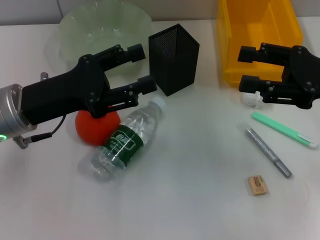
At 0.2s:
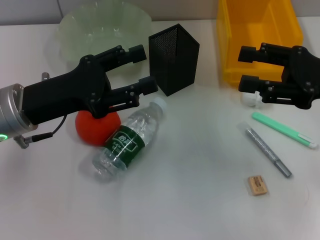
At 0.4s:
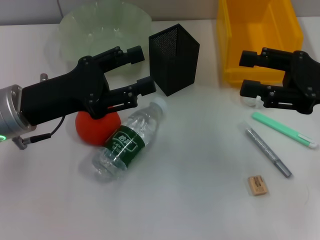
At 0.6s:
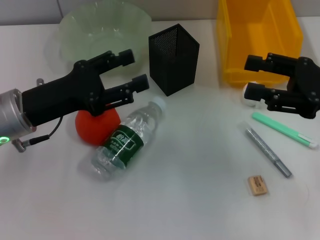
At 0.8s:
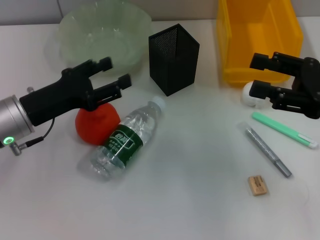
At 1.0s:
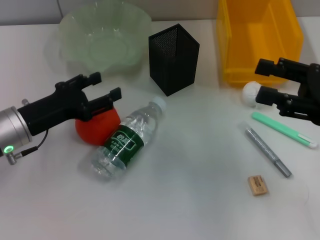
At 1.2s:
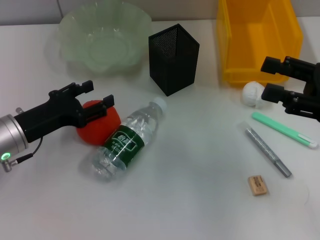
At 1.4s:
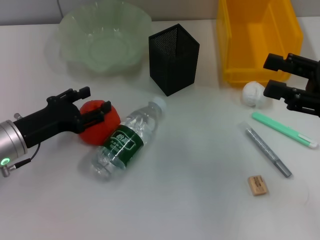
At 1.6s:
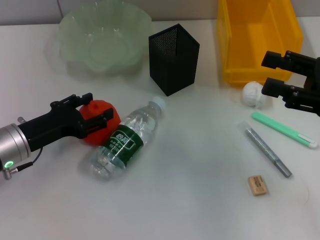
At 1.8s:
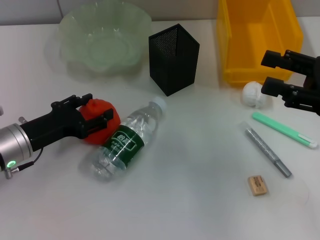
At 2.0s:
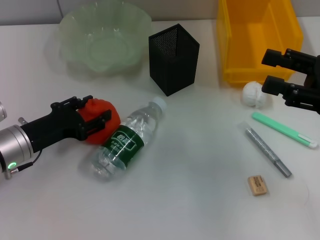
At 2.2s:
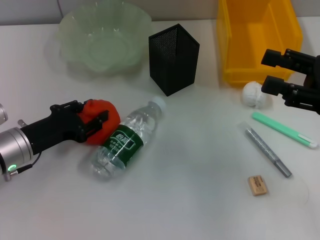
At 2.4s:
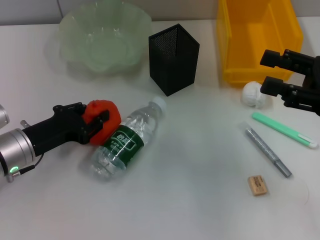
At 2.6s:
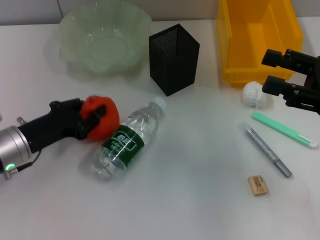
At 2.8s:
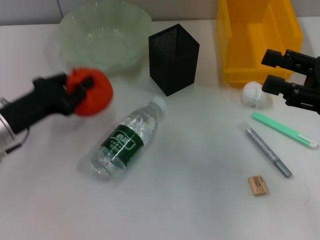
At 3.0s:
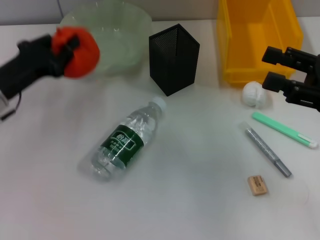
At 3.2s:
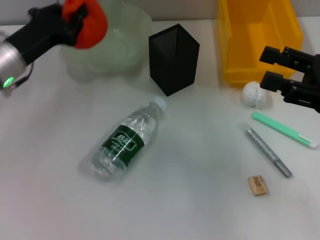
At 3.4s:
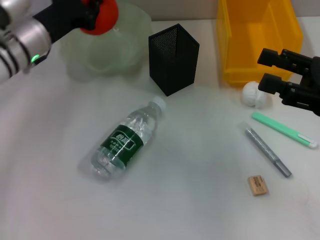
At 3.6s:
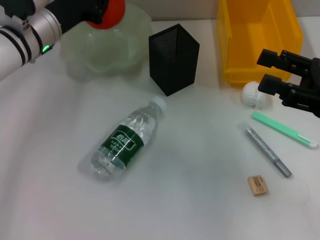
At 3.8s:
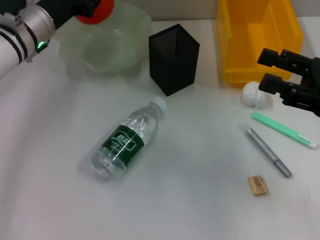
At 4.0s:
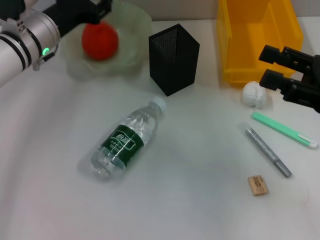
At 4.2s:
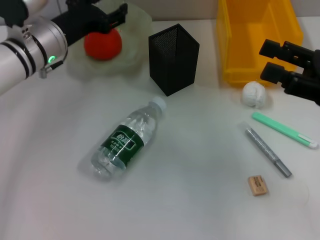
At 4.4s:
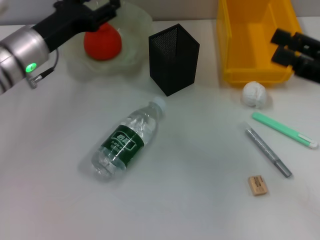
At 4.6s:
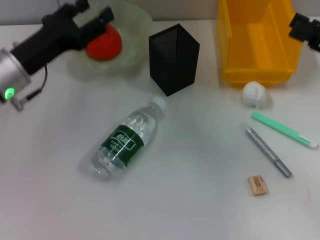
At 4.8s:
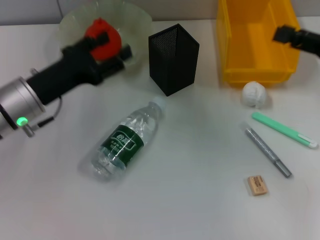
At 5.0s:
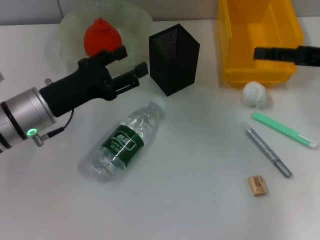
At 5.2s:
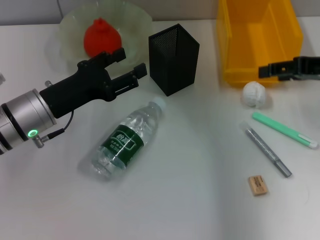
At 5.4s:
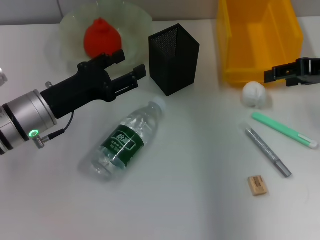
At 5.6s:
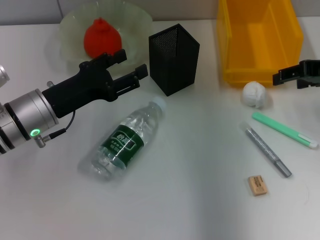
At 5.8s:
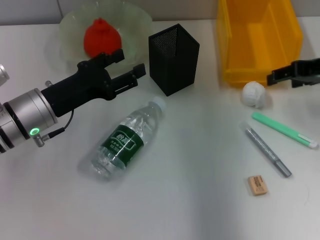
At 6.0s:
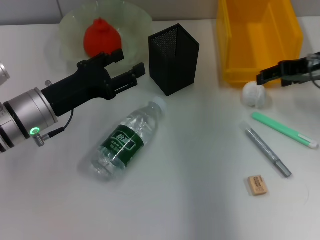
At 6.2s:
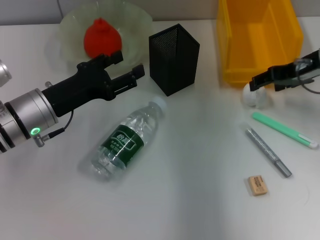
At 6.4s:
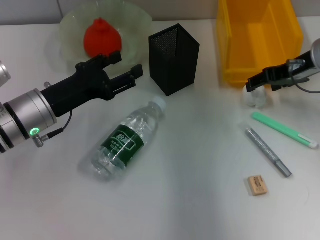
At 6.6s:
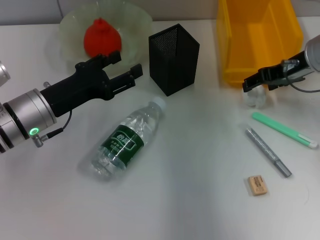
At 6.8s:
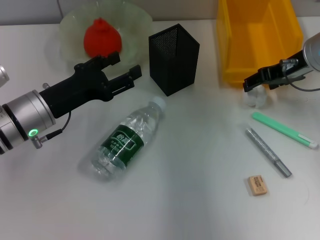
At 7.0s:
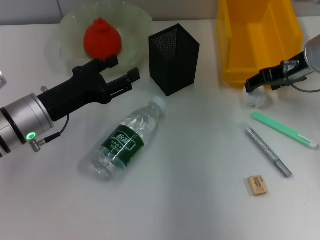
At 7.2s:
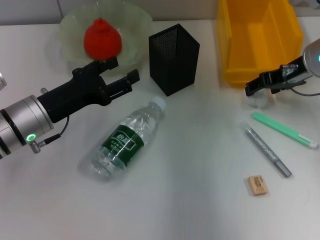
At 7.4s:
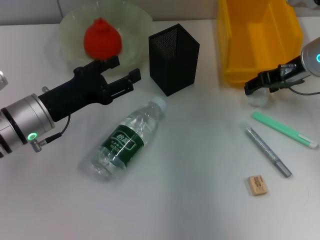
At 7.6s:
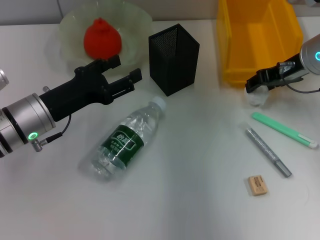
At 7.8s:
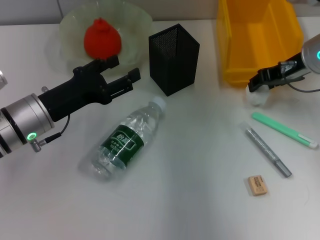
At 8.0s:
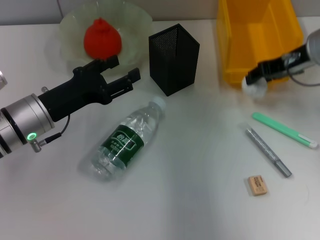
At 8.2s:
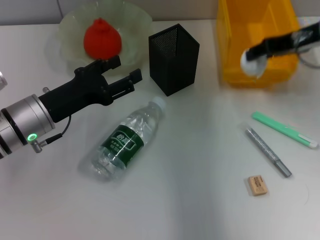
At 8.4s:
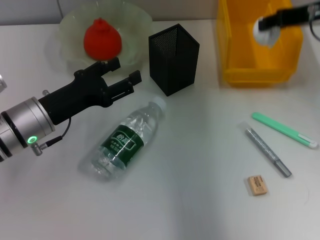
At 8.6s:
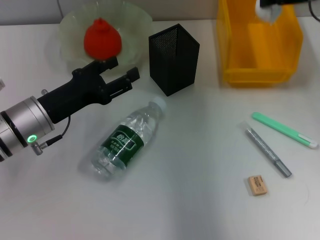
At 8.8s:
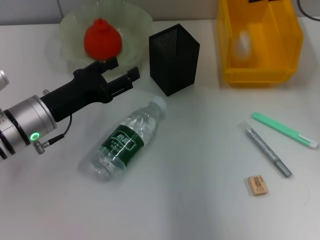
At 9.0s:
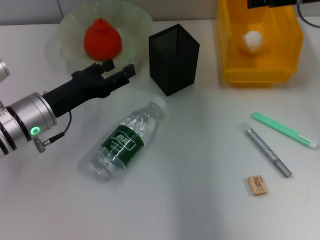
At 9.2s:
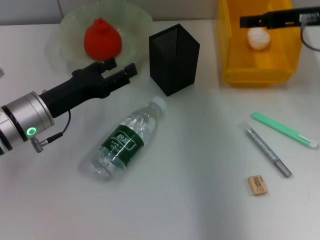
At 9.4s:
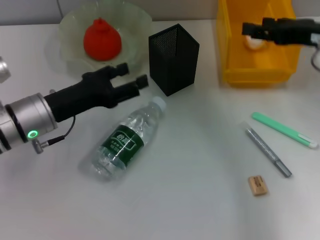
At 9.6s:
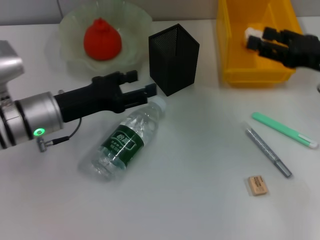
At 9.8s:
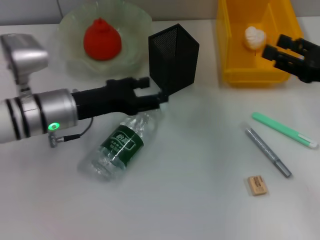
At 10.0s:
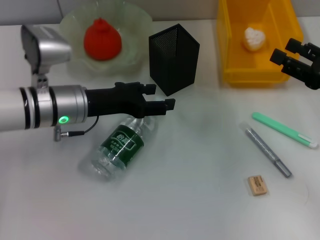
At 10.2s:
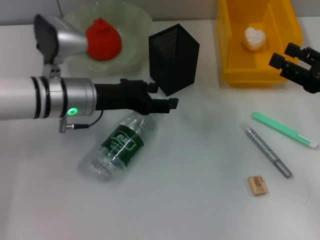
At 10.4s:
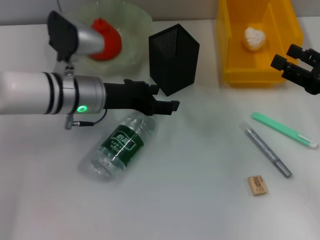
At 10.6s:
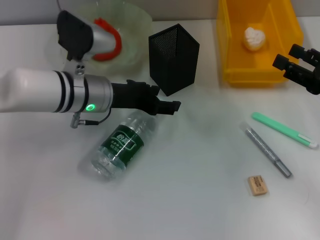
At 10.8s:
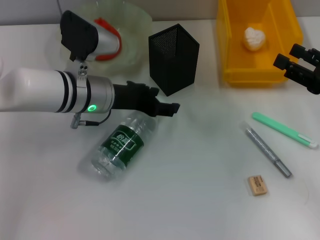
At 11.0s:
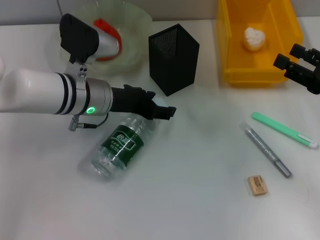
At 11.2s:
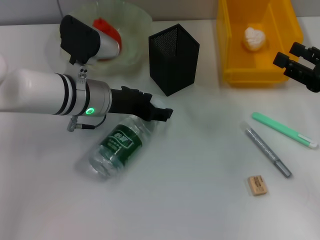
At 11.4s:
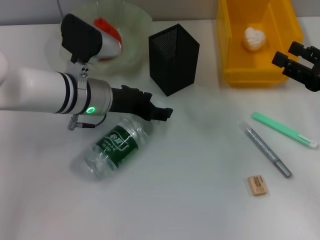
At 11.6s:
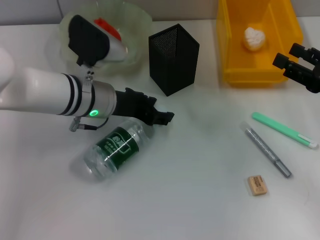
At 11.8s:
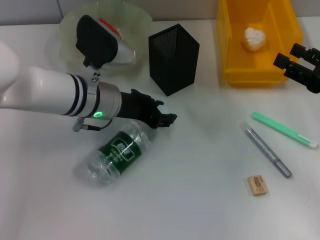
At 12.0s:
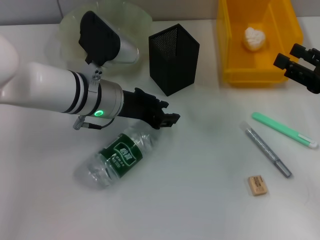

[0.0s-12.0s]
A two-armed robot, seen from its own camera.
Step, 0.0s to 2.4s: Grab the orange with the left hand.
Step, 2.6s to 4.2s: Place the orange into the fruit bowl with the left hand.
Step, 4.4s to 7.6s: Grab the paper ball with the right hand.
Step, 7.8s to 9.2s: Place the paper ball into the trash can with the right hand.
0.0s to 1.6s: The left gripper shifts roughly 10 cm downward.
1.6s to 3.0s: The left gripper changes place by approximately 5 cm, and closes.
3.0s to 4.4s: The left gripper heads forward and to the right, covering roughly 10 cm, and opens.
4.4s to 6.0s: The right gripper shifts approximately 10 cm forward. Meanwhile the left gripper shifts approximately 5 cm backward.
6.0s to 7.6s: The right gripper moves about 5 cm.
7.6s to 9.0s: The right gripper travels upward by roughly 10 cm.
9.0s to 10.4s: The left gripper travels to the right by some 5 cm. Meanwhile the right gripper heads backward, downward and to the right, covering some 20 cm.
10.4s to 12.0s: The left gripper closes up.

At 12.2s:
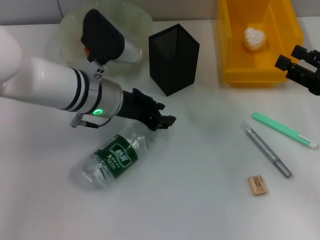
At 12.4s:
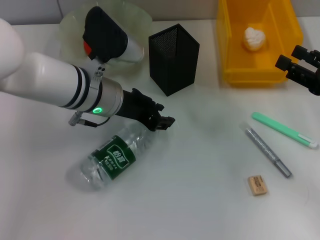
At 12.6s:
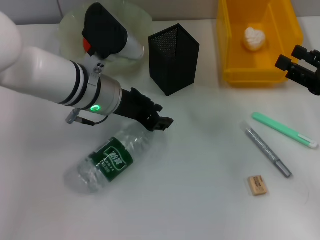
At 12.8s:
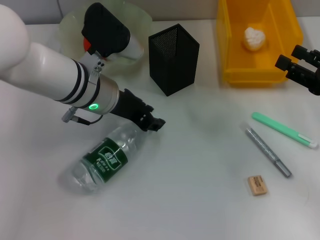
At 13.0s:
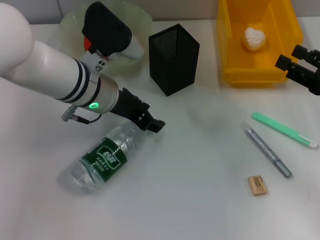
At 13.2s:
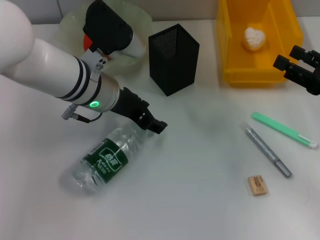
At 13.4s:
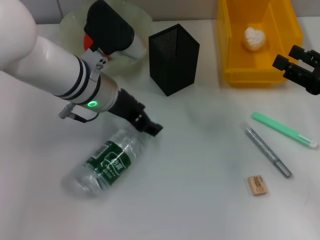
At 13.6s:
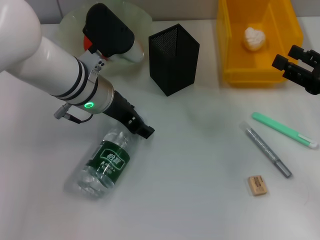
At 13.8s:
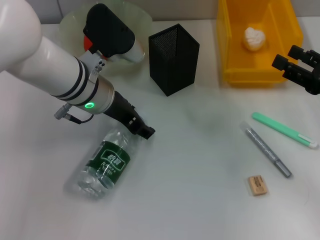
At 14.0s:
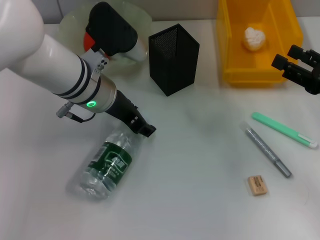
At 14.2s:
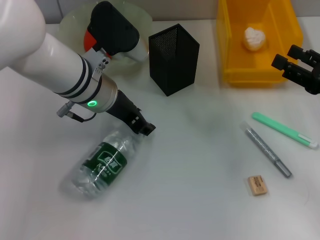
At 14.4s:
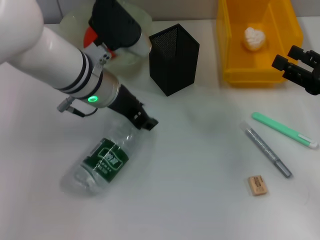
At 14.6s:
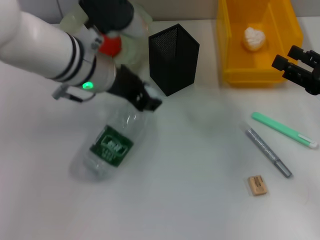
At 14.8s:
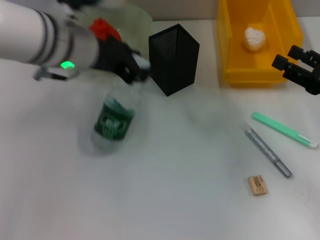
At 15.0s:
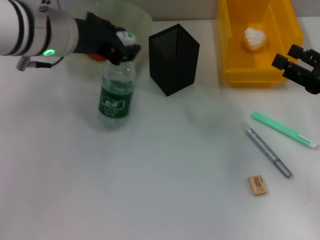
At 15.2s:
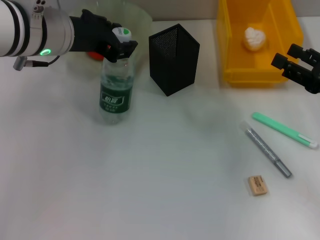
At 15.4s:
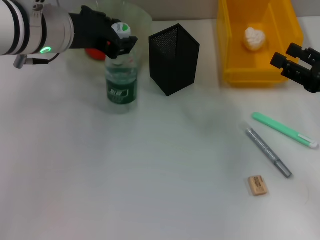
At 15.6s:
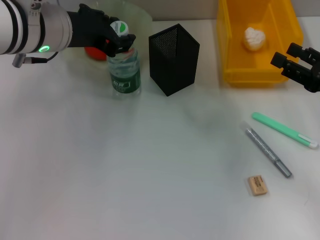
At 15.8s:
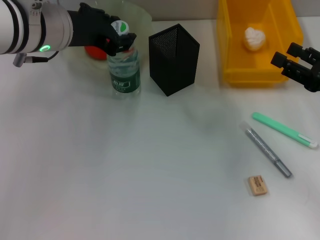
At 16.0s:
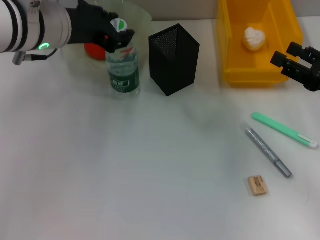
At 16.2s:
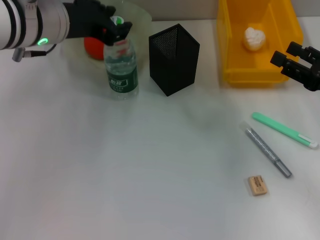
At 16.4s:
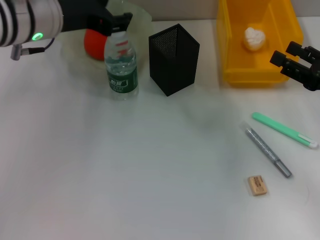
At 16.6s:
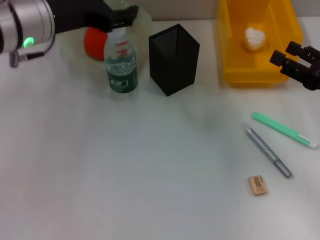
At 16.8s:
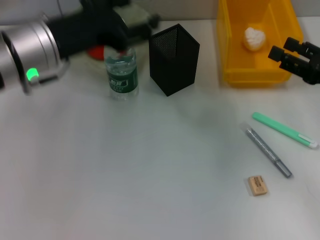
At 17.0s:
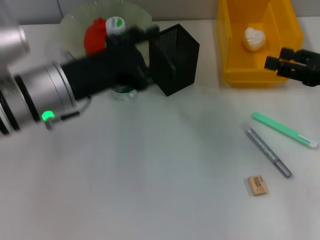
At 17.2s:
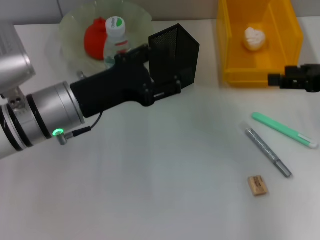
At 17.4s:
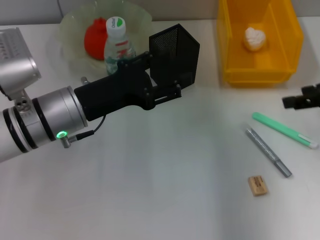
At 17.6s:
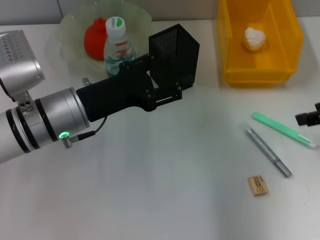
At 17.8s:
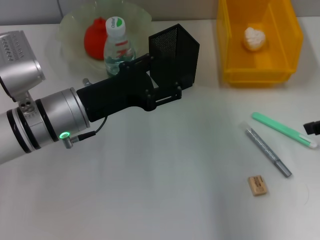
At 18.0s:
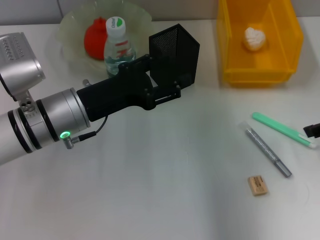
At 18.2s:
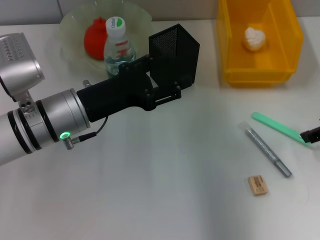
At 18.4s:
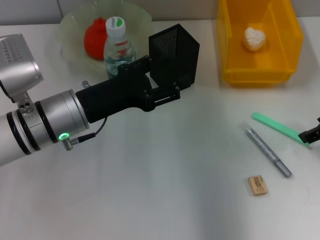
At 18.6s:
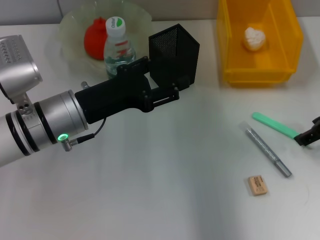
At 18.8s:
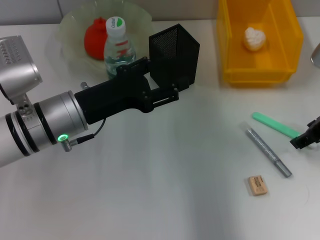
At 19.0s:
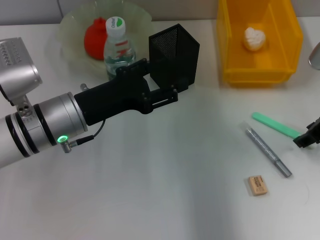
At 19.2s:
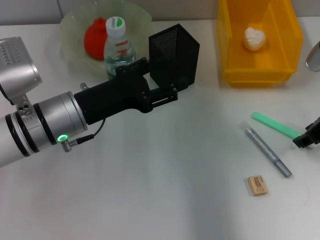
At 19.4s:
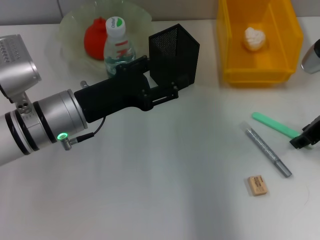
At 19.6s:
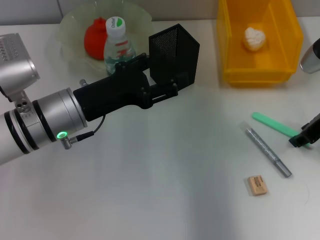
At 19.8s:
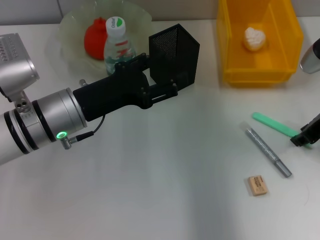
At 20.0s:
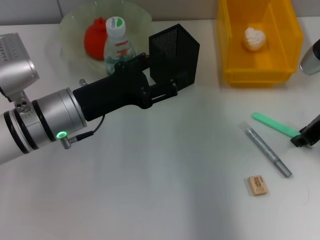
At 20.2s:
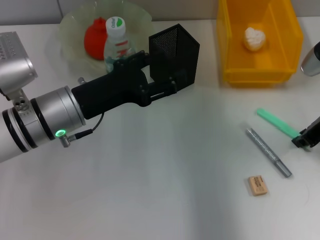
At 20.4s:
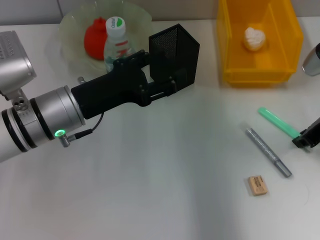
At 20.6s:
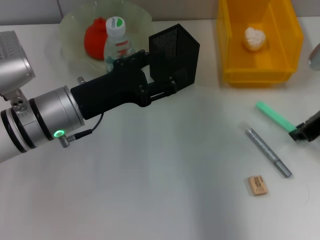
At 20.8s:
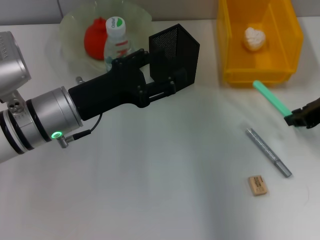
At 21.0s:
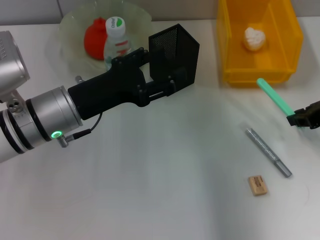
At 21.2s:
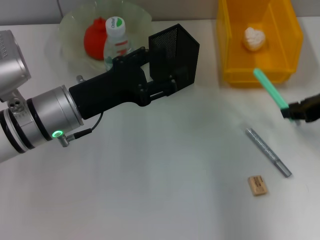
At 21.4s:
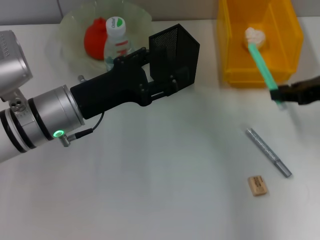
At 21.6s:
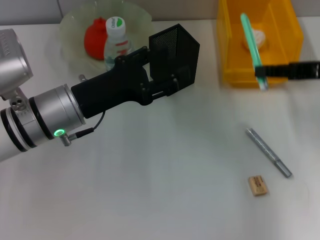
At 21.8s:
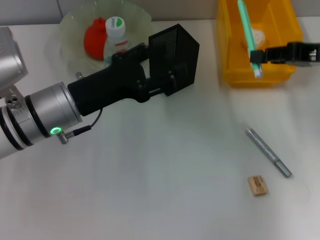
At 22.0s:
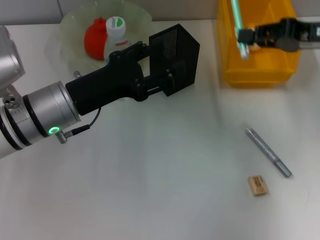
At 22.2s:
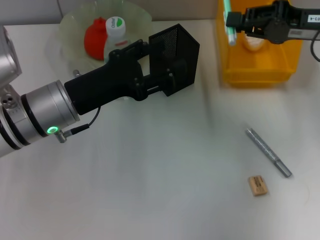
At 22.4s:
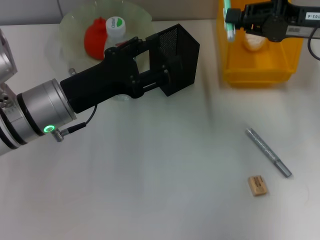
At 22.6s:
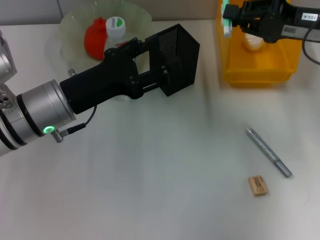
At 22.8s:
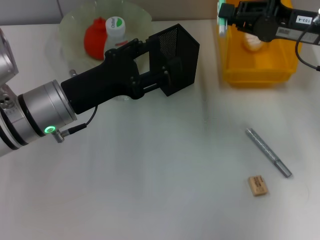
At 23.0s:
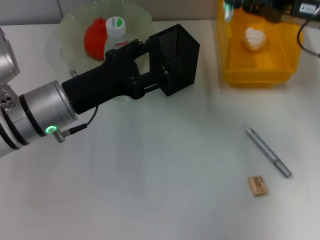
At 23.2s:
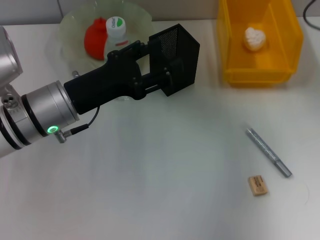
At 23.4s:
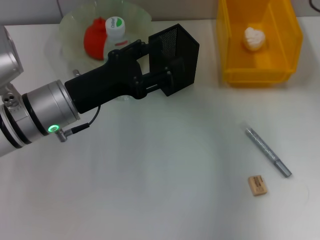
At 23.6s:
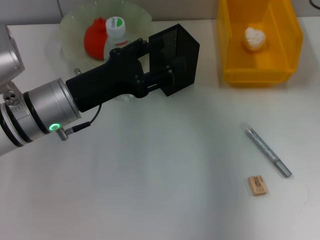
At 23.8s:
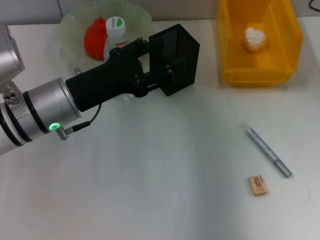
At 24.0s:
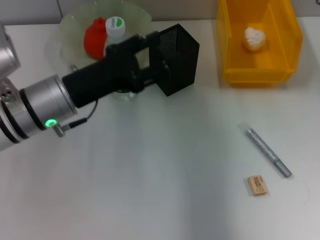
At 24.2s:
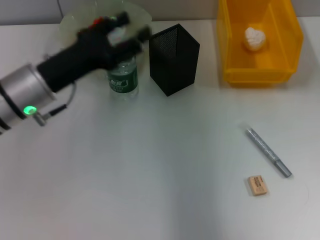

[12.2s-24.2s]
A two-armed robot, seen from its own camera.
Step, 12.2s to 14.4s: Grab the water bottle with the left hand.
Step, 14.6s to 16.4s: Place the water bottle on the table with the left hand.
Step, 16.6s to 20.2s: Grab the blue utility knife with the right hand.
12.2s to 13.8s: The left gripper opens up.
13.8s to 15.2s: The left gripper goes some 10 cm upward, and closes its fingers.
16.6s to 18.2s: The right gripper goes about 5 cm upward; the left gripper travels downward by some 10 cm.
18.2s to 19.8s: The right gripper ends up roughly 5 cm from where it was, and closes its fingers.
19.8s to 21.2s: The right gripper closes.
21.2s to 22.6s: The right gripper shifts approximately 5 cm forward.
22.6s to 24.2s: The right gripper moves upward, some 10 cm.
